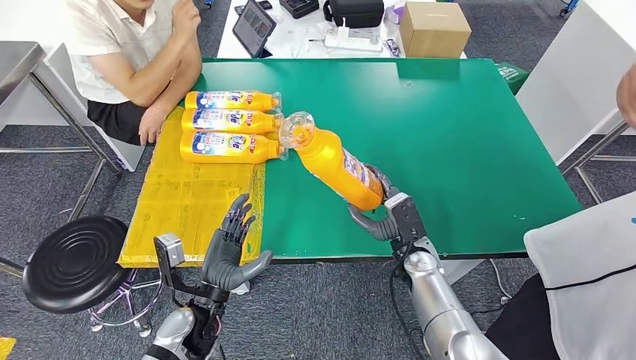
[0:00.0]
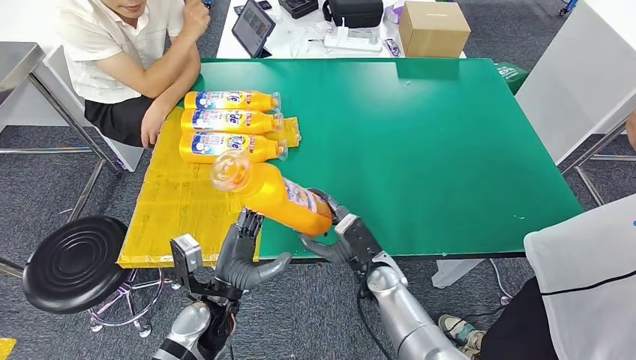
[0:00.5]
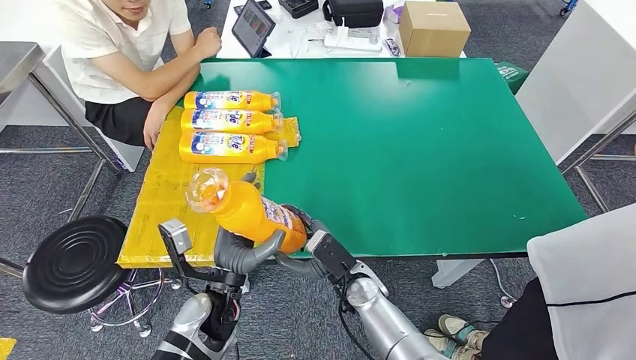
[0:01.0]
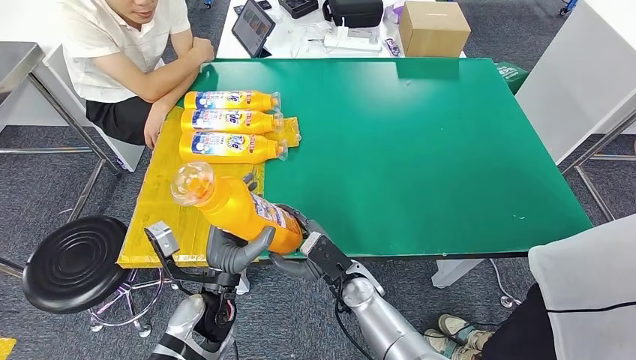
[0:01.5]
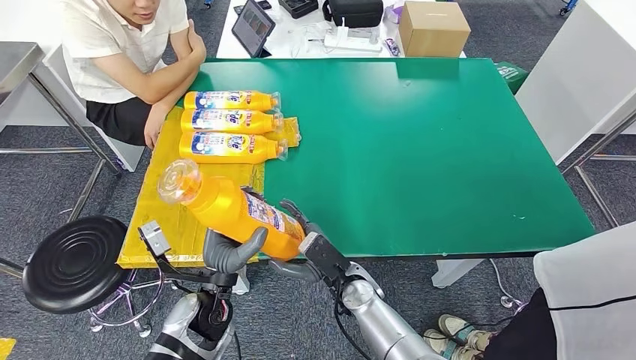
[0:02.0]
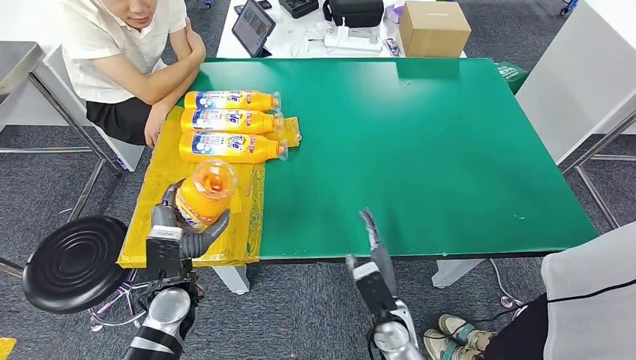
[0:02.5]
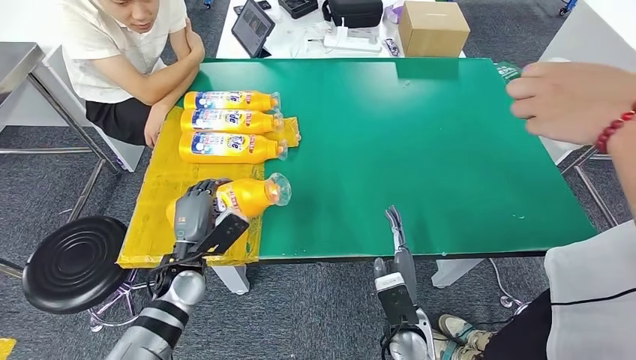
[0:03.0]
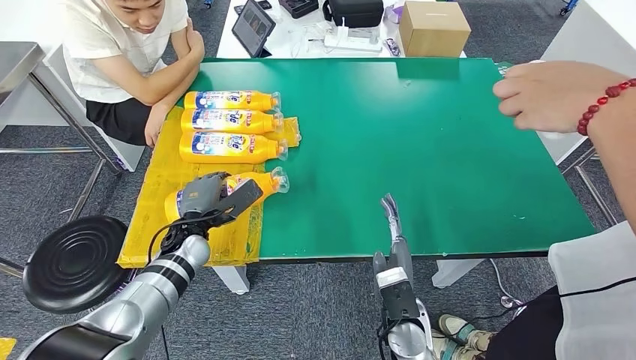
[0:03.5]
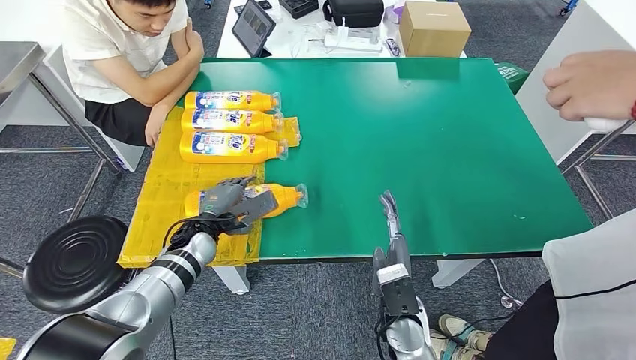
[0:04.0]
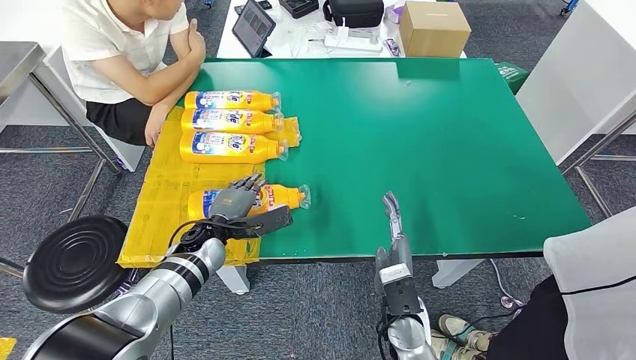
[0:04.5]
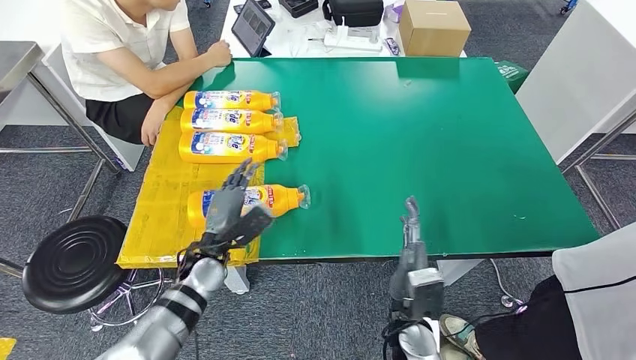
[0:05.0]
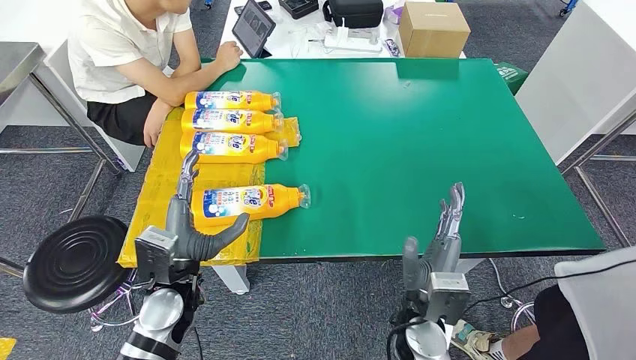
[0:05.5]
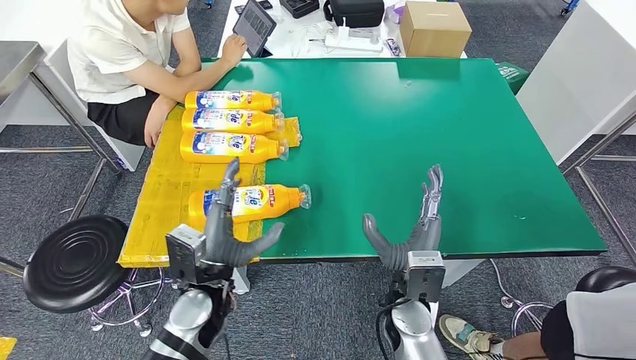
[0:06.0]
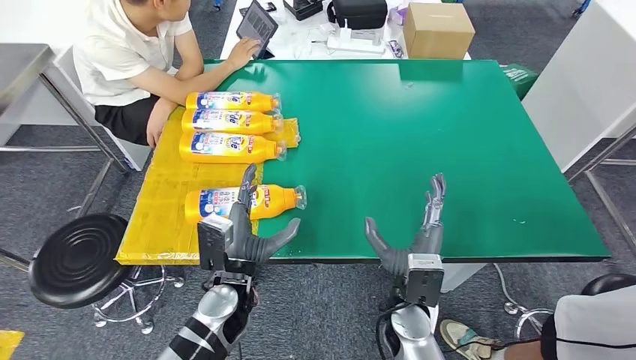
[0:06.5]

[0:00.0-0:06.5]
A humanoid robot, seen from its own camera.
Step, 0:00.5 to 0:06.5: Flip the fast-moving consumer goods bottle to the front side.
0:00.0 to 0:02.0: The right hand shifts roughly 15 cm to the left and backward.
0:02.0 to 0:04.5: The left hand shifts about 15 cm forward, while the right hand shifts roughly 10 cm to the right and backward.
